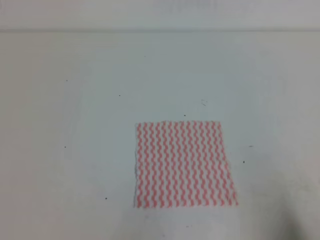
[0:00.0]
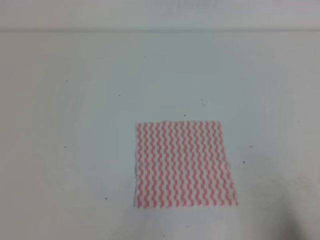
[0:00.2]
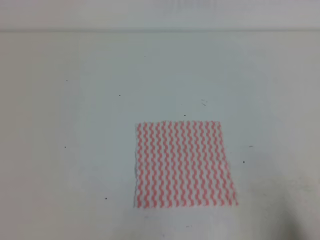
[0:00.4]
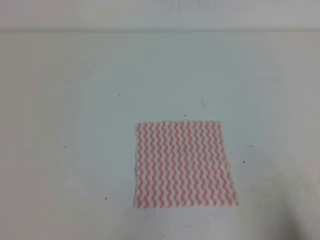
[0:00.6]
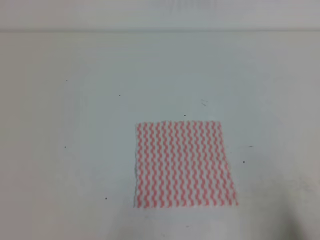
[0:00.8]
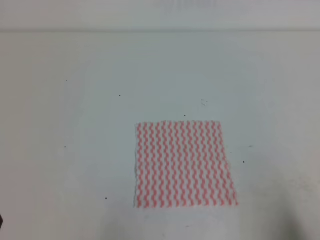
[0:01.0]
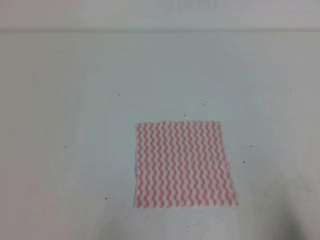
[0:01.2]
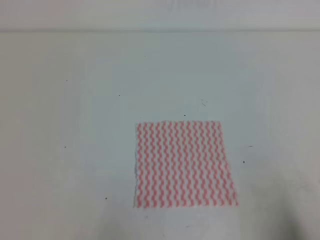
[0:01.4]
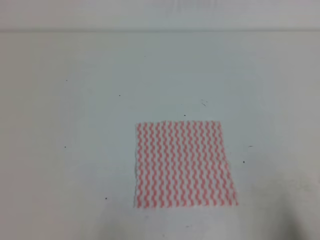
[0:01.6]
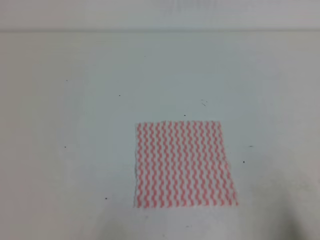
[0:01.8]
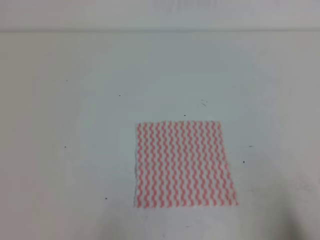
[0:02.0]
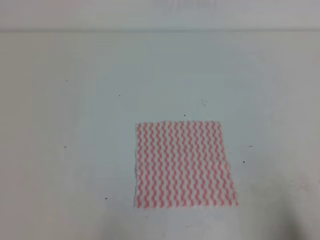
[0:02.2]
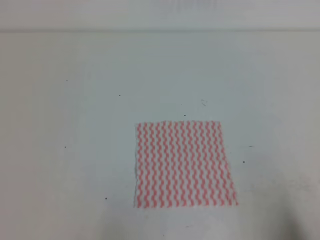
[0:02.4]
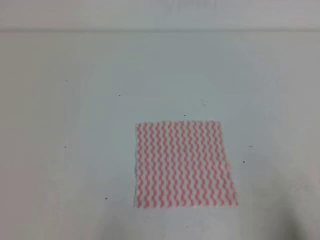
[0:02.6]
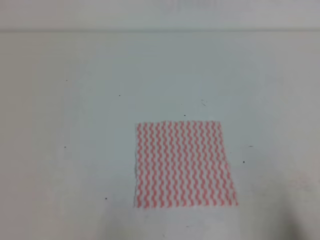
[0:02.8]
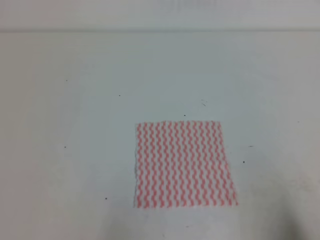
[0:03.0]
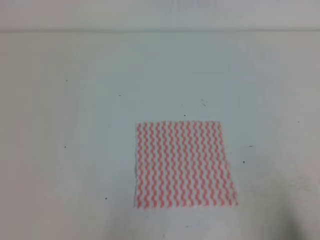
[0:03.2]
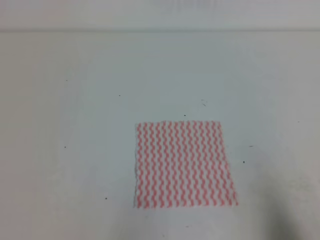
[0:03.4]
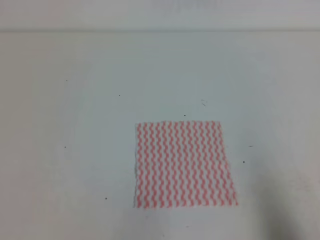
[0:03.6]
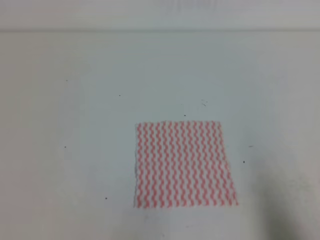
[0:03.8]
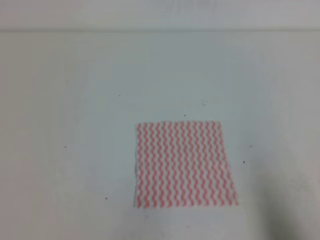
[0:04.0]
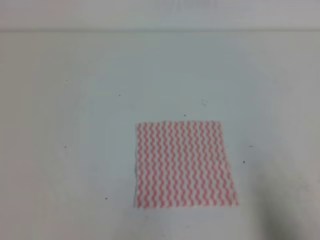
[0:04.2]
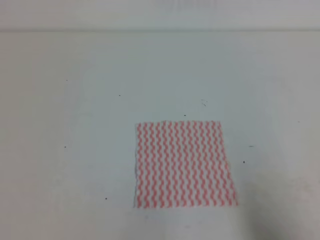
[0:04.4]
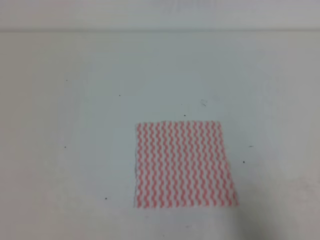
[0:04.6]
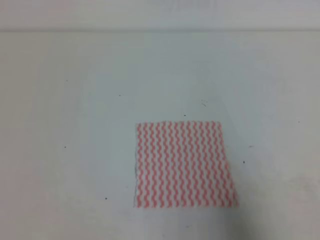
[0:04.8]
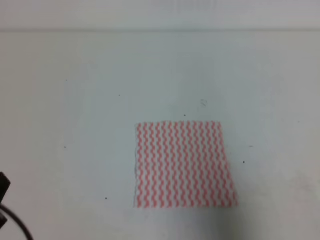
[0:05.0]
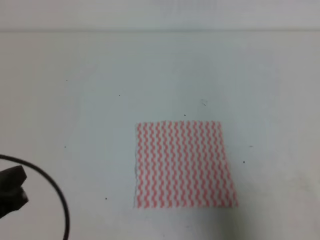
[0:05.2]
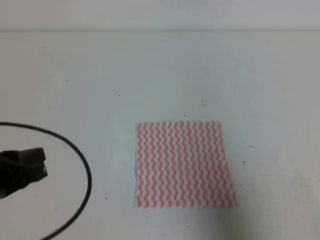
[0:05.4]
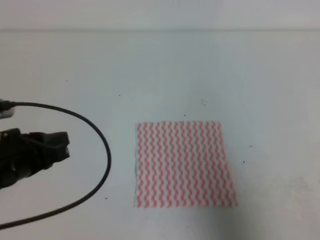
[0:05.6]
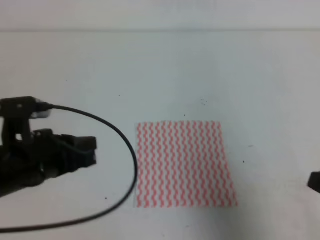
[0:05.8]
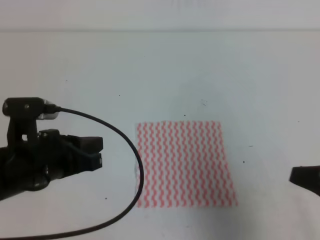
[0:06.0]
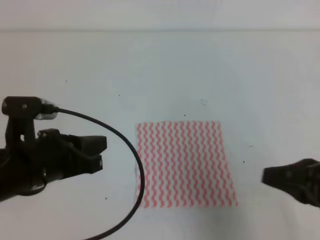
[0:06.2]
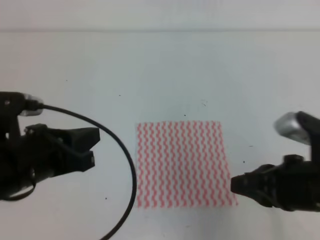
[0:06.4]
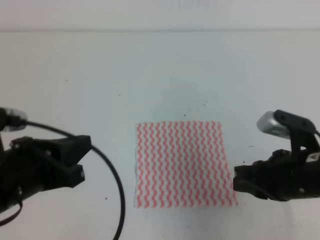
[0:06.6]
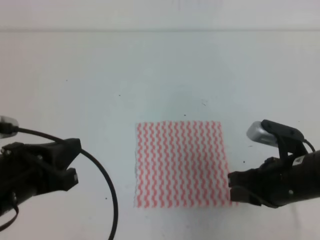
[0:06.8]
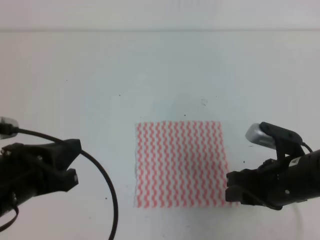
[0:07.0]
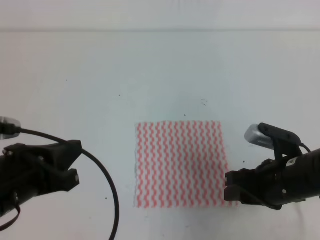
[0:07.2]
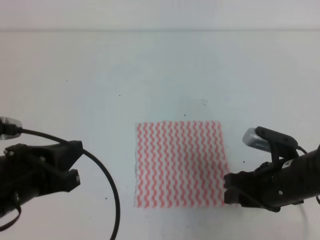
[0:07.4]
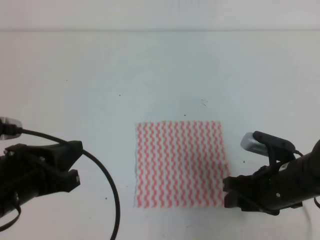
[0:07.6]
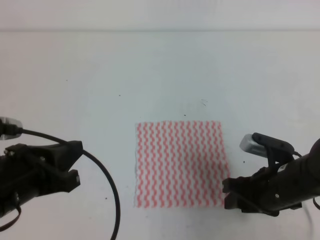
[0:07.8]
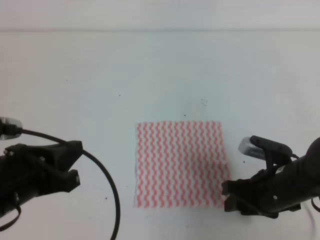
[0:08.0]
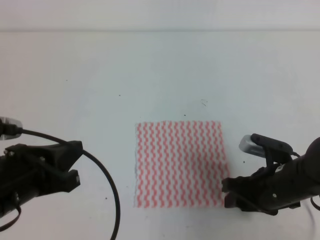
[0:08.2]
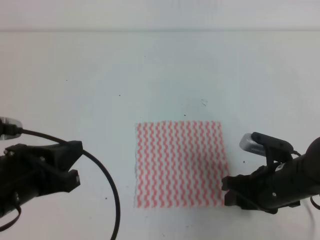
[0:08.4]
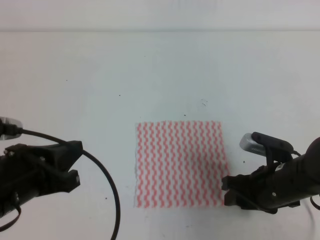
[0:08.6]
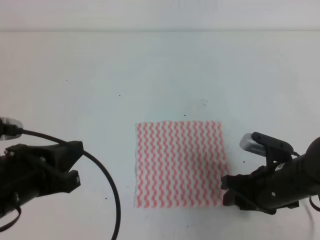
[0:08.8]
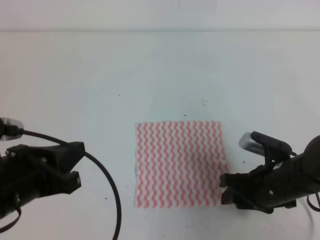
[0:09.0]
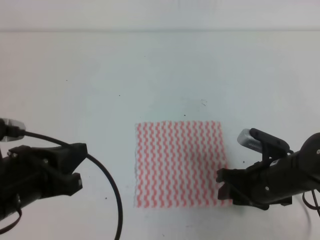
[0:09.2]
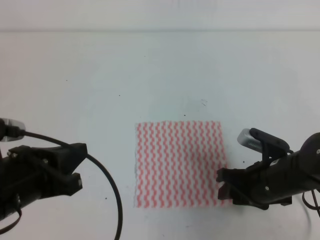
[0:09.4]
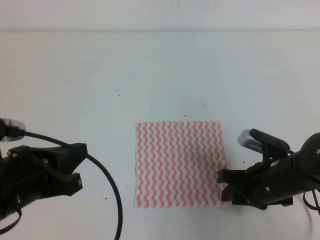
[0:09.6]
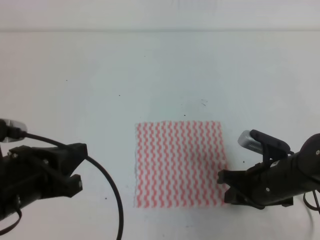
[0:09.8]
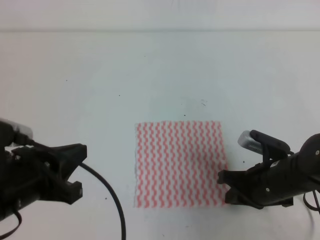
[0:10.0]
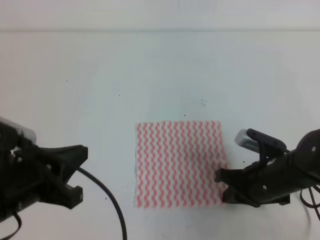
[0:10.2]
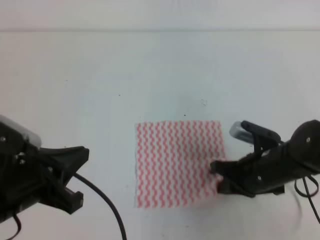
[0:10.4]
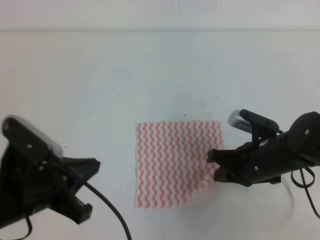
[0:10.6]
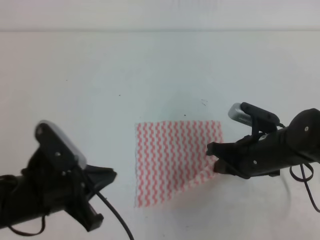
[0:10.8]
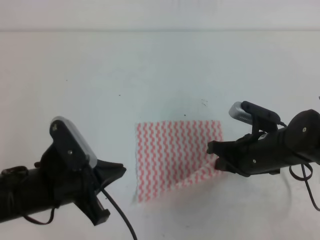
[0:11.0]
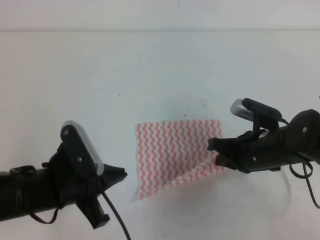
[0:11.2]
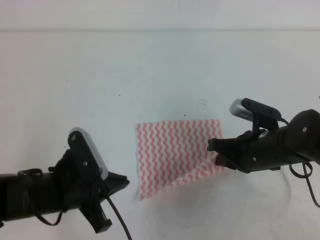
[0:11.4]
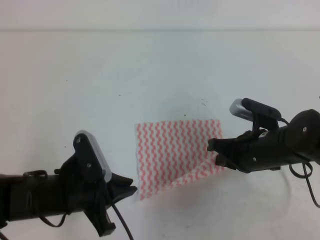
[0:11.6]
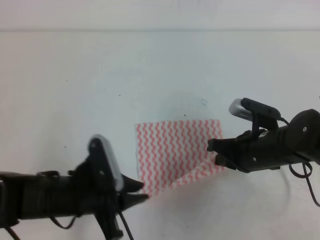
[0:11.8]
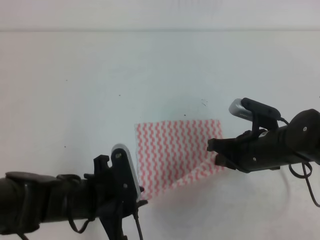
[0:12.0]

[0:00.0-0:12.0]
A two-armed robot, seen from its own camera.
0:01.6 to 0:03.0: The two grippers keep their place.
0:04.4 to 0:06.0: The right gripper travels forward, upward and to the left by roughly 10 cm. Meanwhile the left gripper is displaced forward and to the right by some 20 cm.
0:06.0 to 0:07.6: The left gripper ends up roughly 5 cm from where it was, while the right gripper is displaced downward, forward and to the left by about 15 cm, and opens up.
0:07.6 to 0:09.0: There are only small adjustments of the grippers.
0:09.0 to 0:10.4: The right gripper closes.
0:10.4 to 0:12.0: The left gripper goes about 10 cm downward and to the right, and opens up.

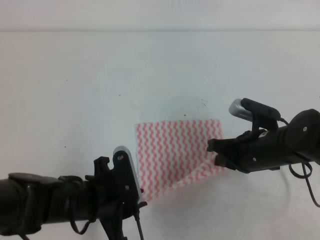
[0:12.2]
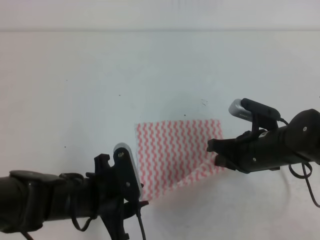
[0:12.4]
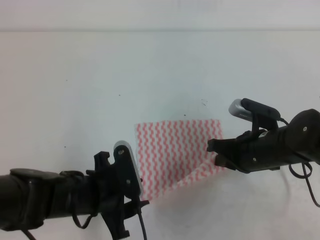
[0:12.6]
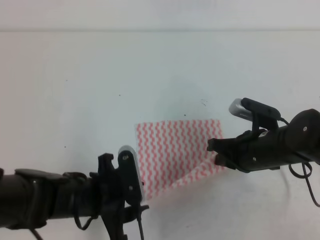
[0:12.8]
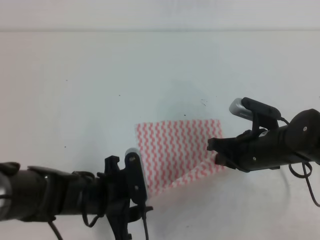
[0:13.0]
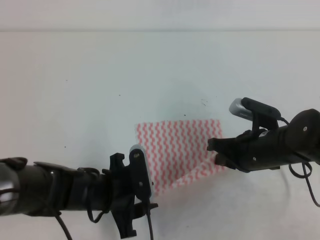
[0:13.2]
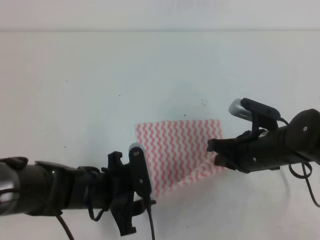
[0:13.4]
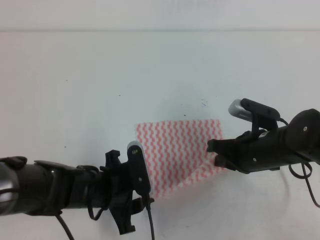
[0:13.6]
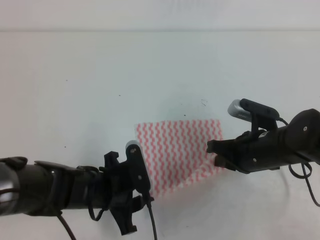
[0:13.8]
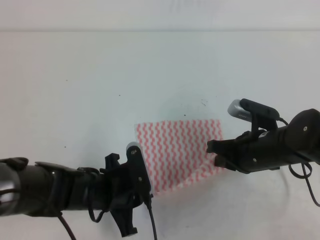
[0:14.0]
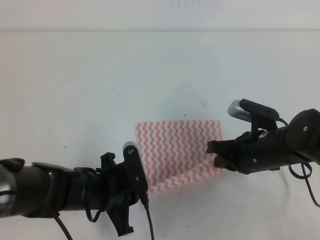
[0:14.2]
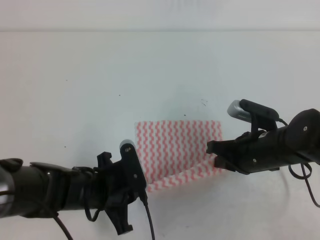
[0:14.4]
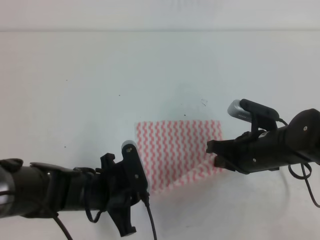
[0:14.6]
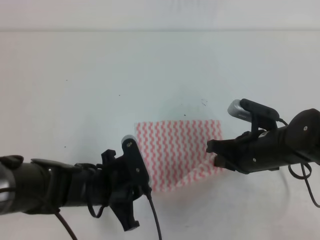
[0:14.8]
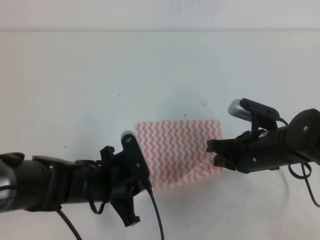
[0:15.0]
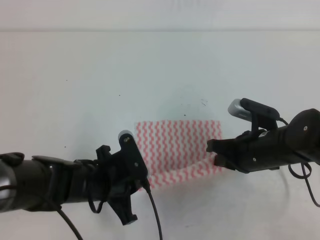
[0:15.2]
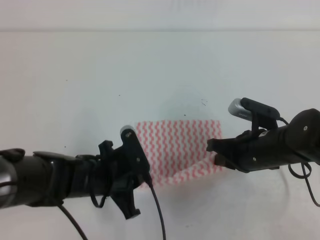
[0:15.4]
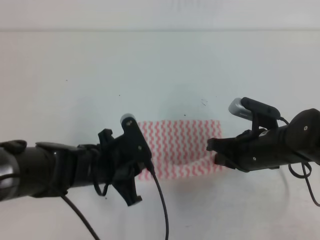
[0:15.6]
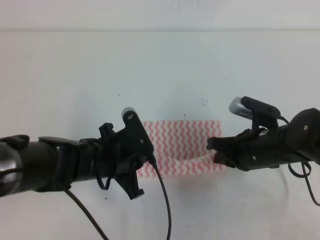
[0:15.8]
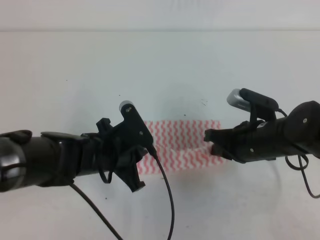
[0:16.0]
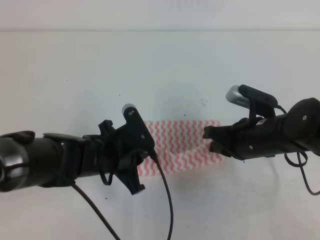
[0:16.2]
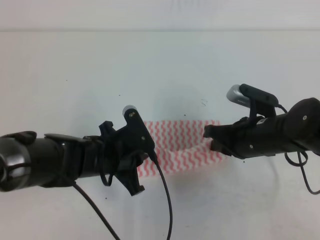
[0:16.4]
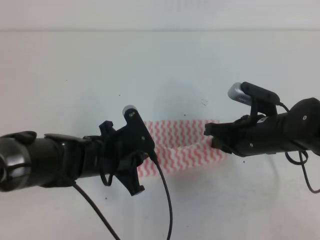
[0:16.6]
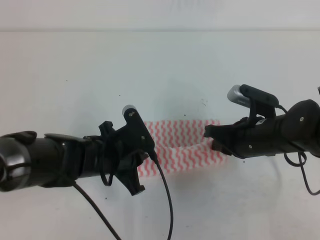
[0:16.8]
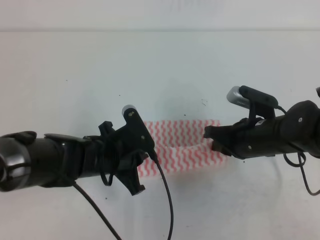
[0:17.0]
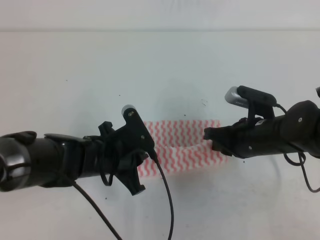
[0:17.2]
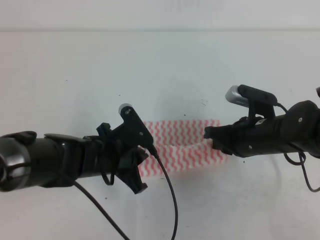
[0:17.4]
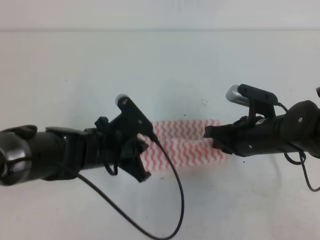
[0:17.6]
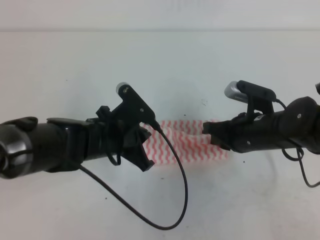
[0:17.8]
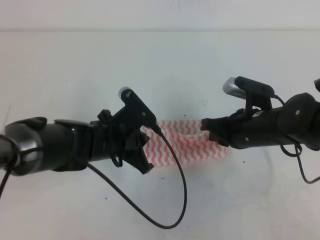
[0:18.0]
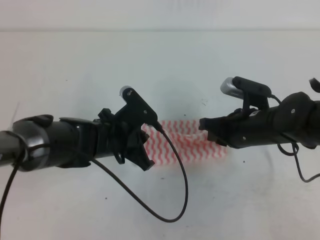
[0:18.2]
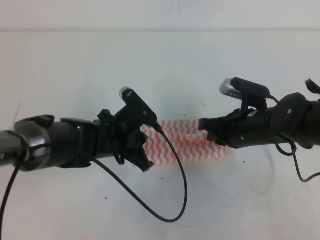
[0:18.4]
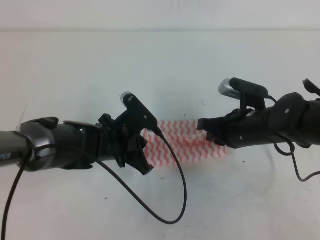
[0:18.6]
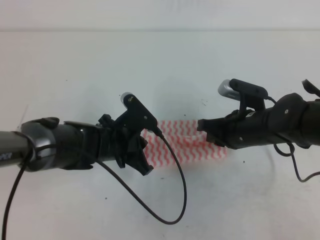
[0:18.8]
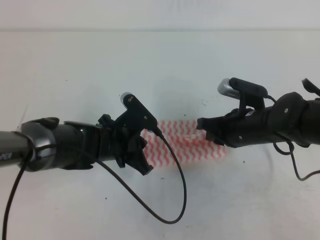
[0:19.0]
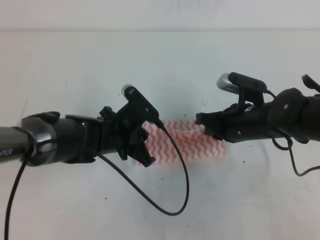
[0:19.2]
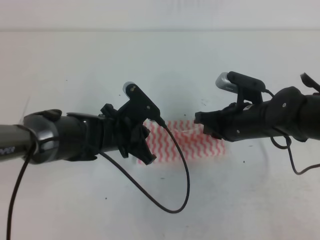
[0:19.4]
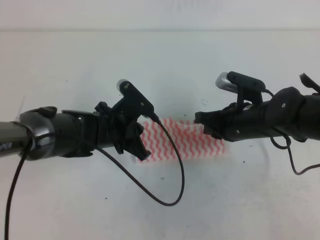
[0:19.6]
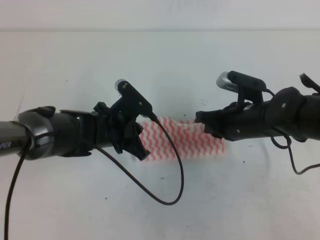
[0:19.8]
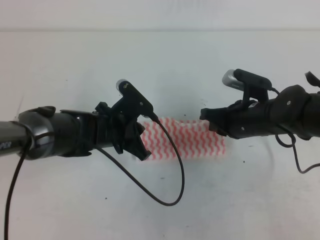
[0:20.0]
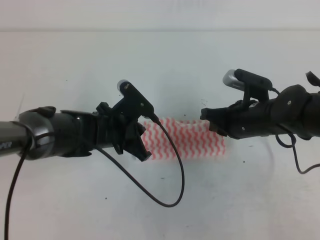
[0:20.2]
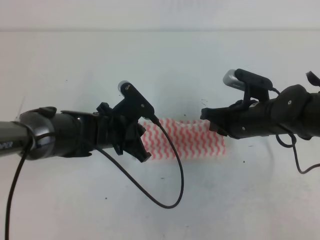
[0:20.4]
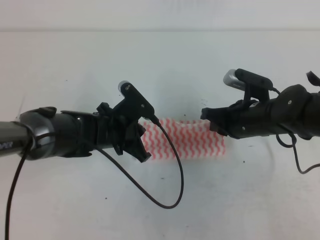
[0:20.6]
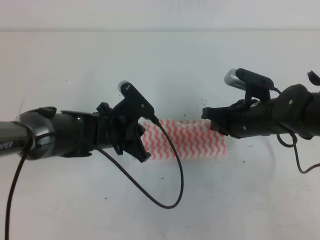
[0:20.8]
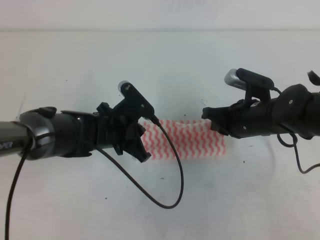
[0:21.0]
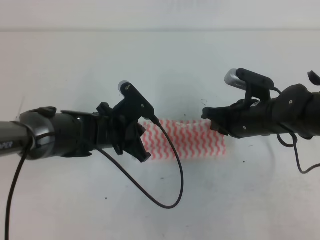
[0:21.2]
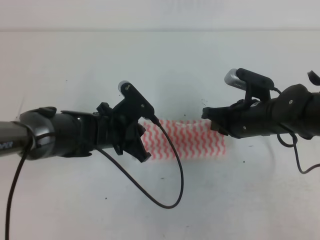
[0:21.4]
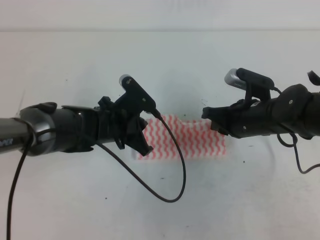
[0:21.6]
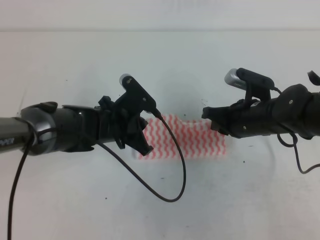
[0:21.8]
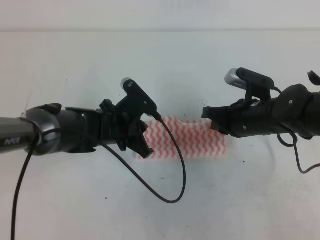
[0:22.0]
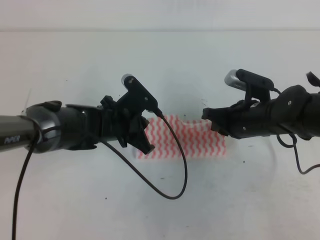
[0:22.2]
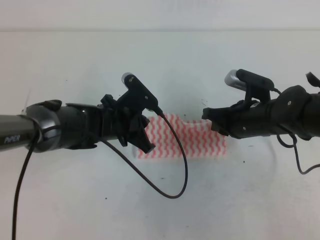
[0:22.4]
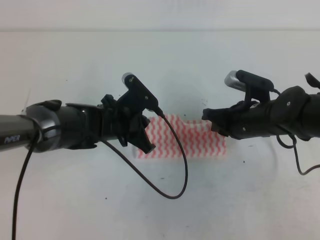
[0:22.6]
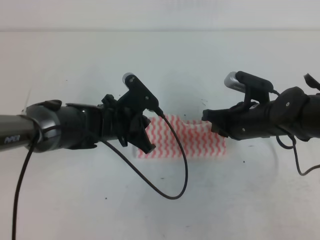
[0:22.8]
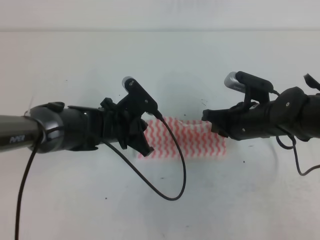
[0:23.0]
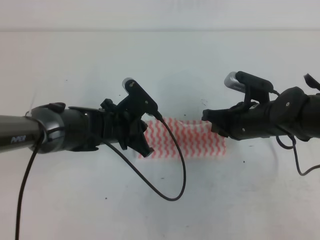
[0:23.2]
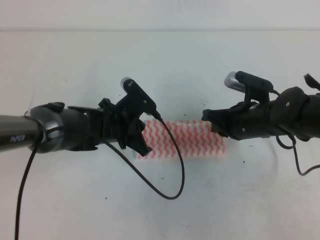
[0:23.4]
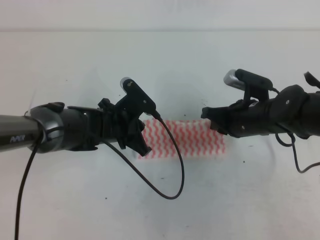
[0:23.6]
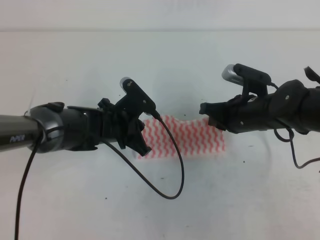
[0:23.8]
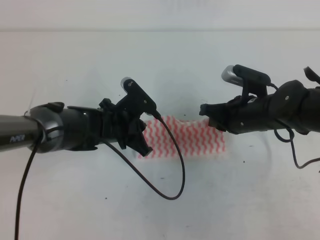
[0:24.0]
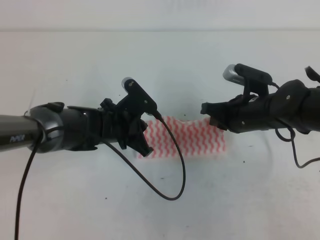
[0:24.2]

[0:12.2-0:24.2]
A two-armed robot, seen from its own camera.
Step, 0:12.2 to 0:16.8: Fold the towel upwards with the both gripper.
Step, 0:17.2 to 0:20.0: Tidy up the towels.
0:12.2 to 0:13.8: The grippers stay close to where they were, moving slightly.
0:13.8 to 0:15.2: The left gripper closes up.
0:16.6 to 0:19.8: The grippers stay close to where they were, moving slightly.
0:19.8 to 0:21.2: Both grippers stay put.
0:21.2 to 0:22.6: The grippers stay close to where they were, moving slightly.
0:22.6 to 0:24.2: Both grippers stay put.
